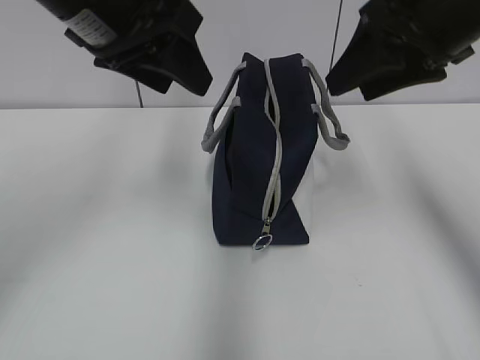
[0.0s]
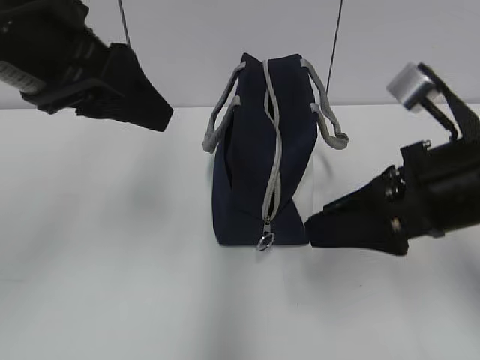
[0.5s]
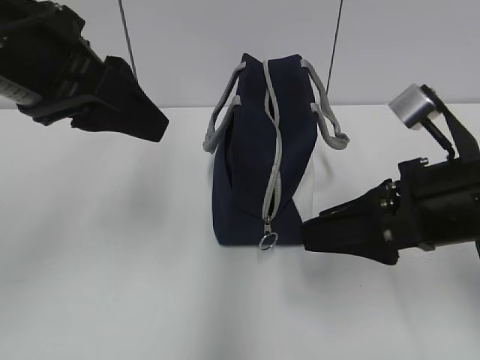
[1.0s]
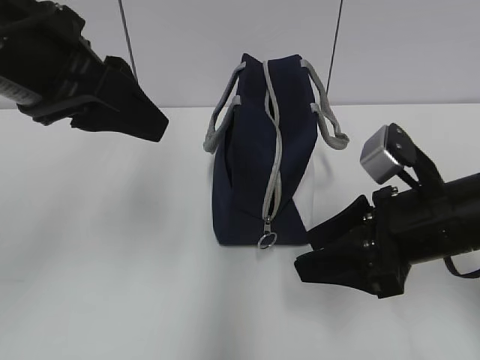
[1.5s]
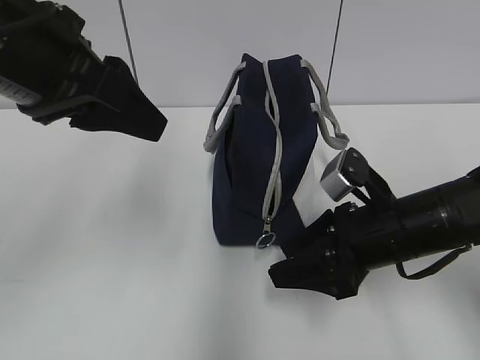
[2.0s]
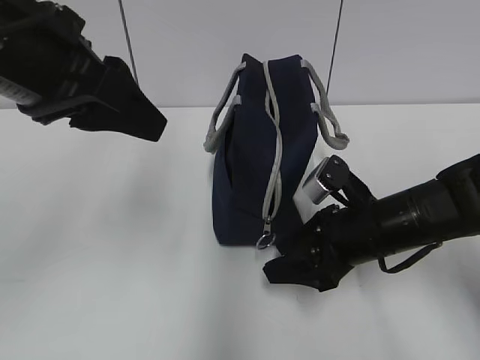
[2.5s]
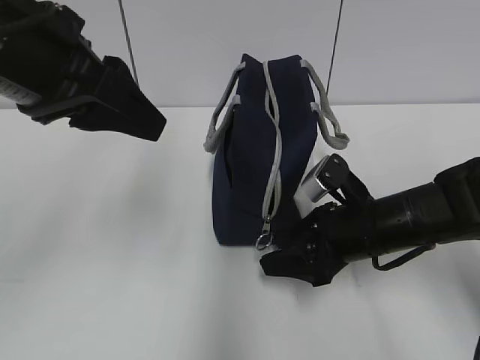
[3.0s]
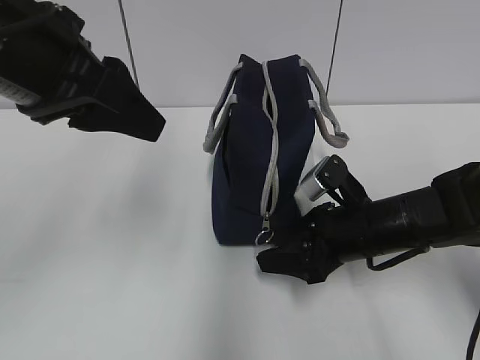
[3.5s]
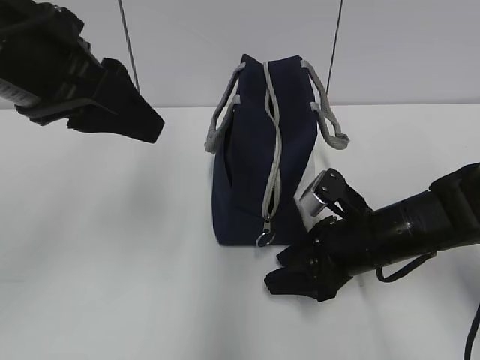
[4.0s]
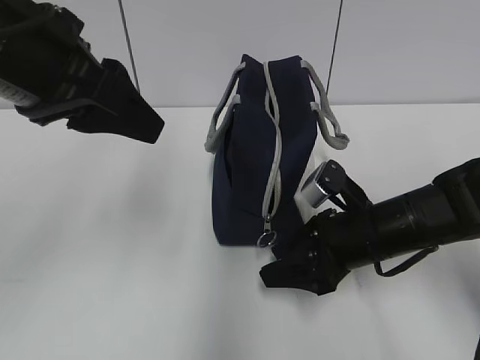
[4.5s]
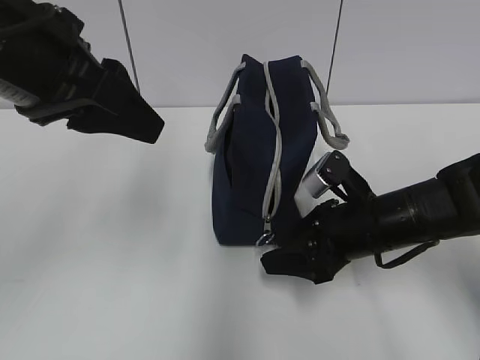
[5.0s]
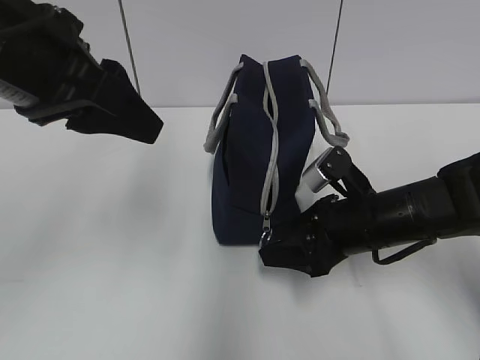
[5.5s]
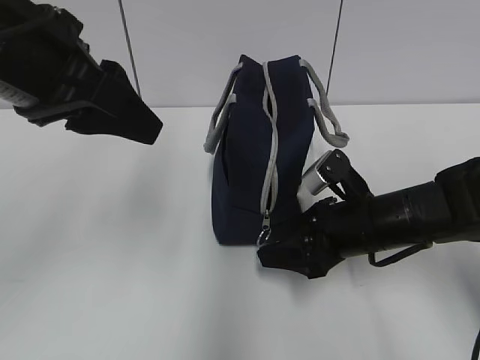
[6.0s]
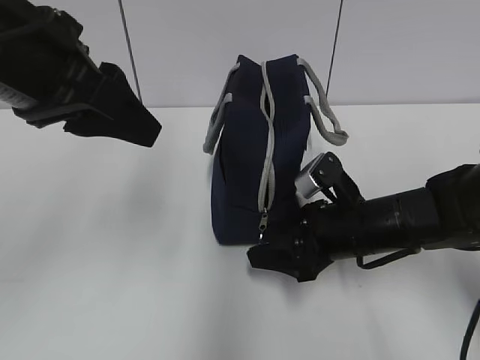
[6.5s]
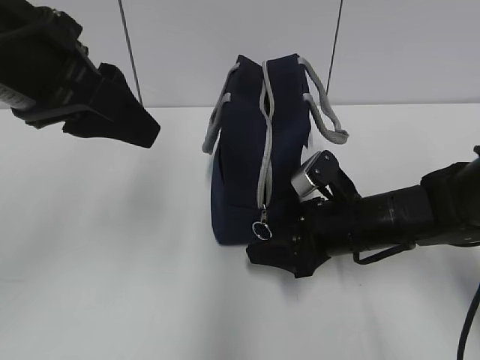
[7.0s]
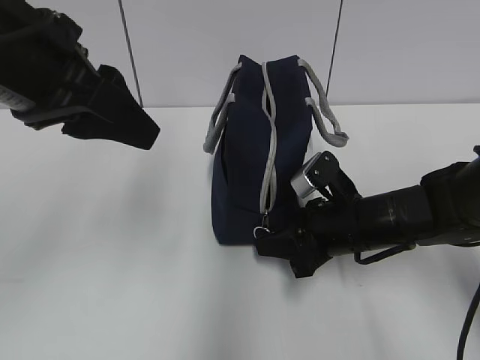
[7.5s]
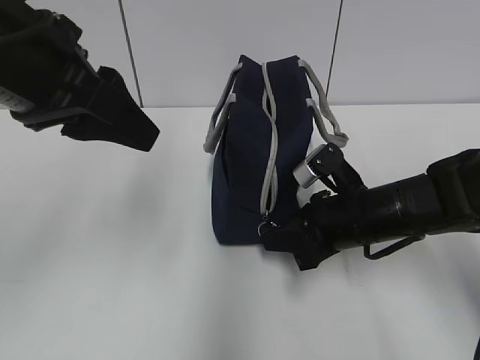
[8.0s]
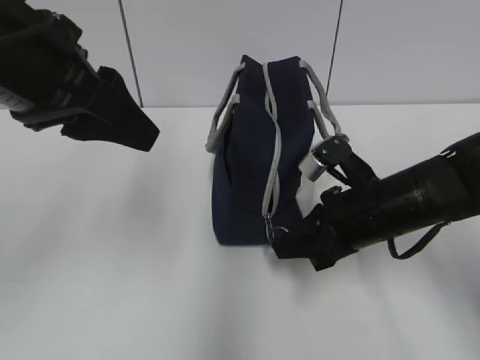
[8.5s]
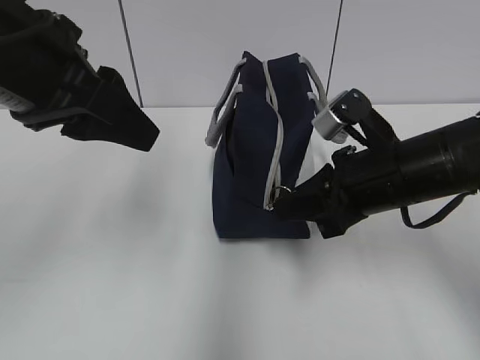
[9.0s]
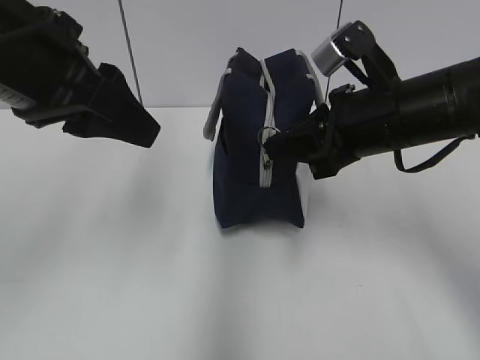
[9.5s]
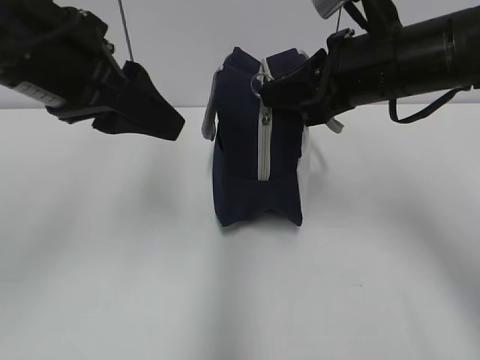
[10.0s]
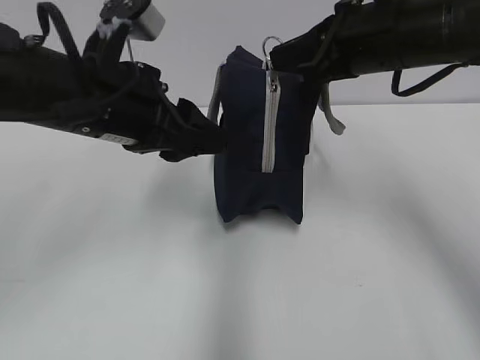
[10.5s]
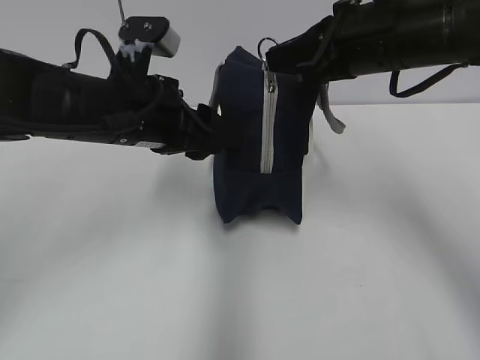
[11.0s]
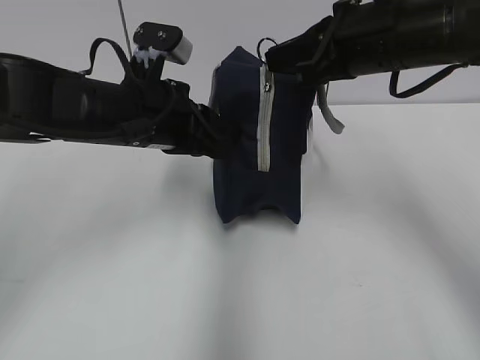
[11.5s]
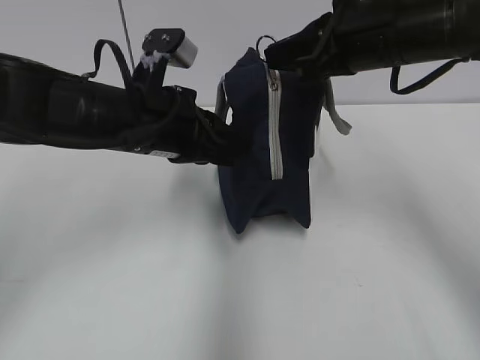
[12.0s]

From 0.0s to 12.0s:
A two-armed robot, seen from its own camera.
From 0.0s to 2.0s: The left gripper goes approximately 5 cm backward; the right gripper travels downward by roughly 20 cm.
From 2.0s to 4.0s: The right gripper ends up about 5 cm from where it was.
From 4.0s to 6.0s: The grippers stay close to where they were, moving slightly.
From 6.0s to 8.0s: The right gripper closes.
From 8.0s to 10.0s: The right gripper heads upward, covering approximately 15 cm.
From 10.0s to 12.0s: The left gripper shifts some 15 cm downward, forward and to the right, and closes.

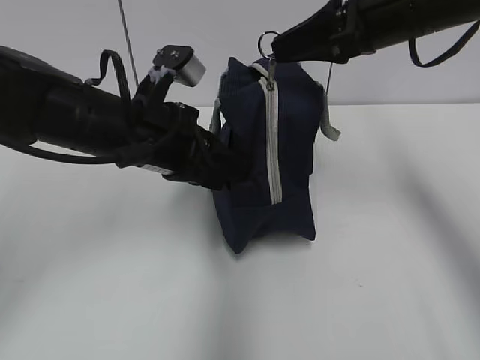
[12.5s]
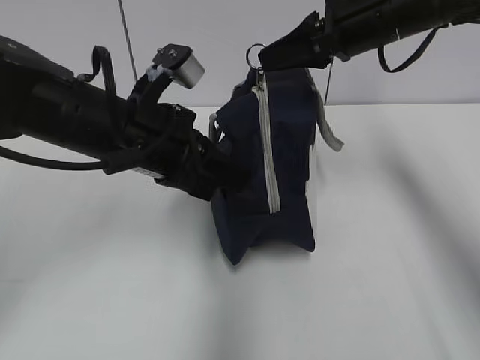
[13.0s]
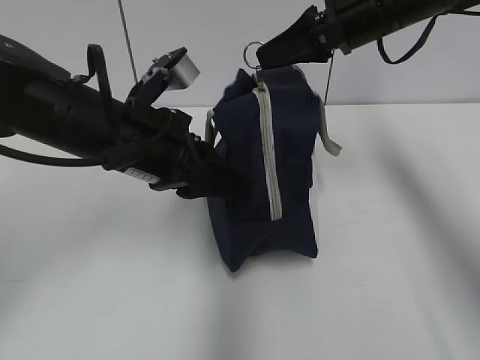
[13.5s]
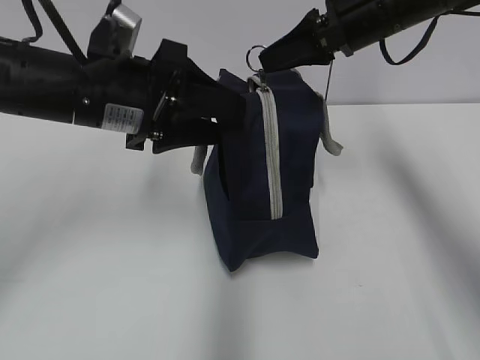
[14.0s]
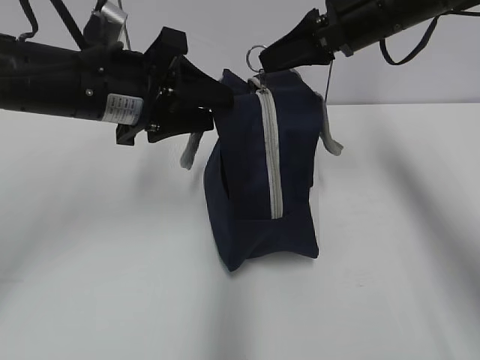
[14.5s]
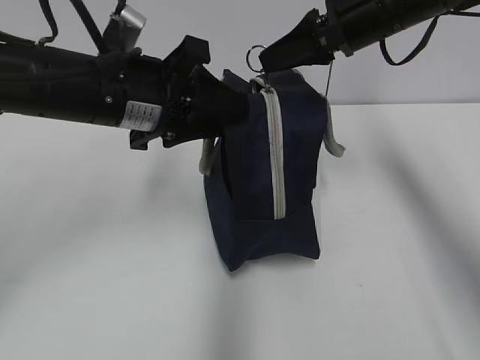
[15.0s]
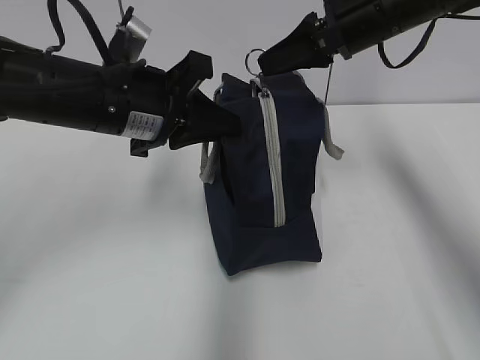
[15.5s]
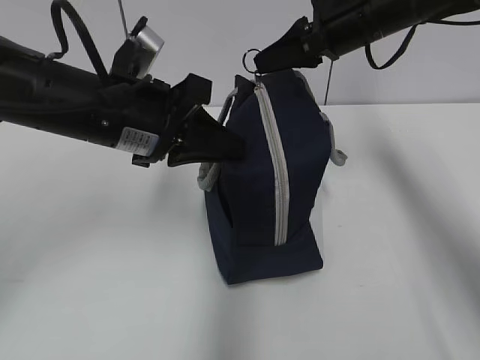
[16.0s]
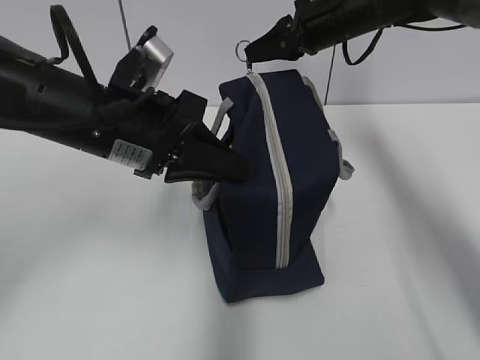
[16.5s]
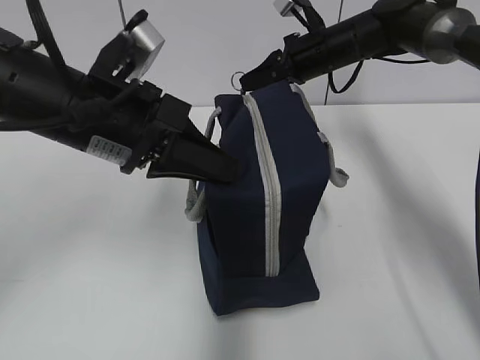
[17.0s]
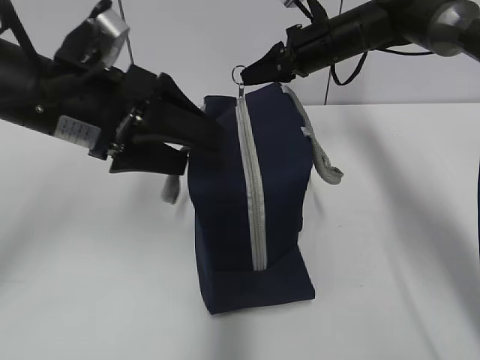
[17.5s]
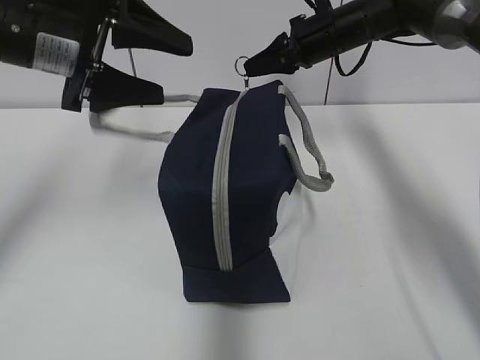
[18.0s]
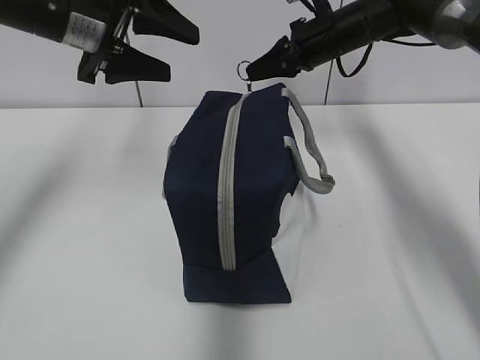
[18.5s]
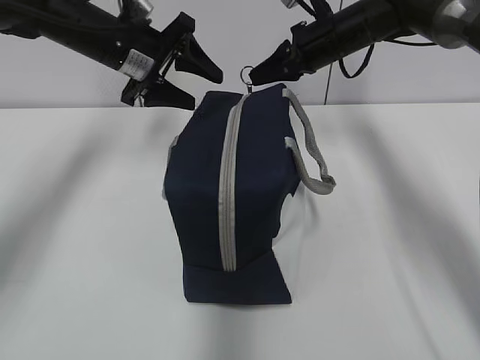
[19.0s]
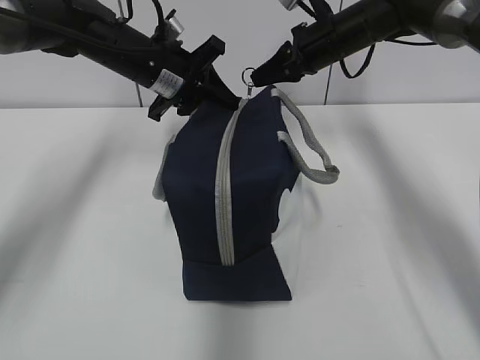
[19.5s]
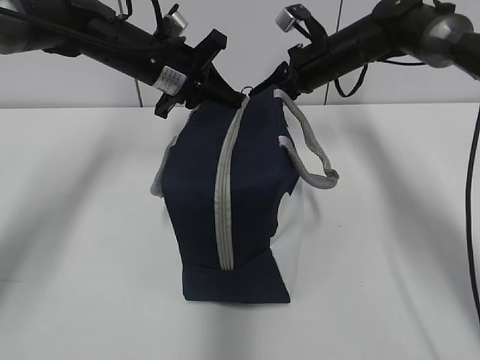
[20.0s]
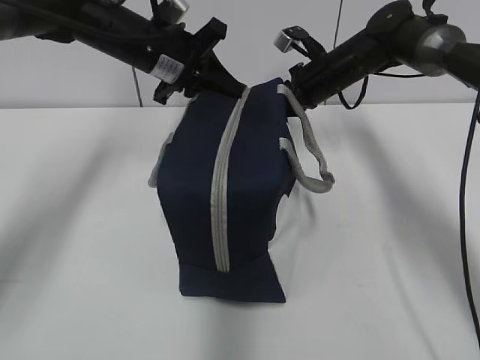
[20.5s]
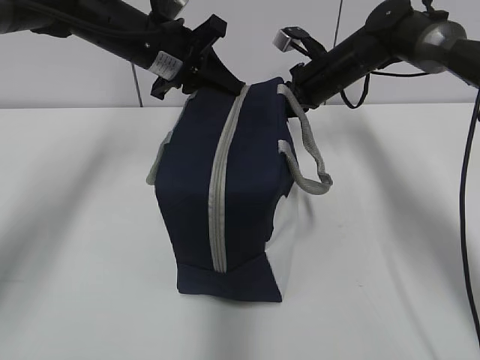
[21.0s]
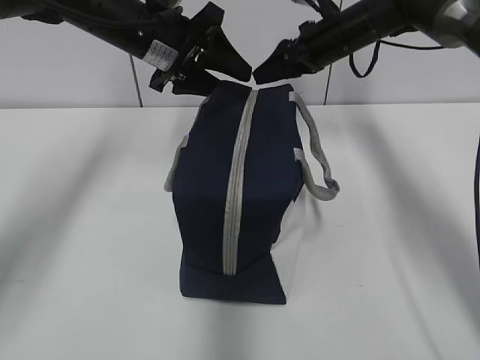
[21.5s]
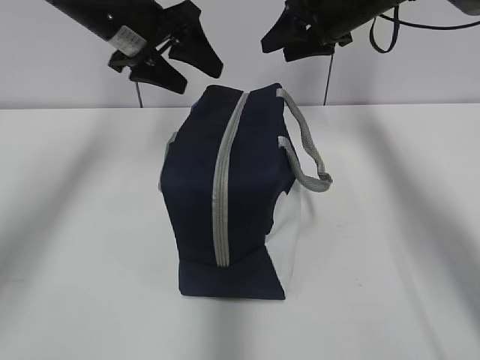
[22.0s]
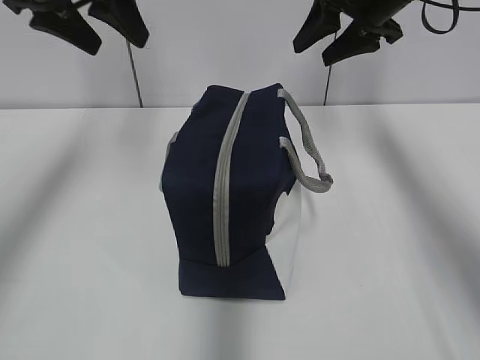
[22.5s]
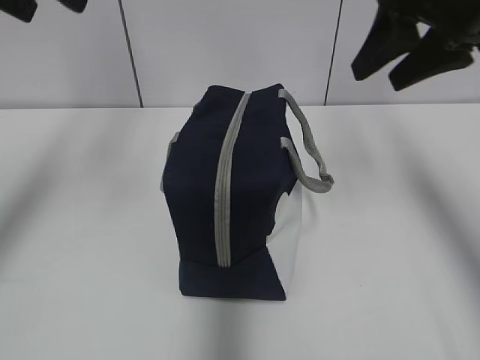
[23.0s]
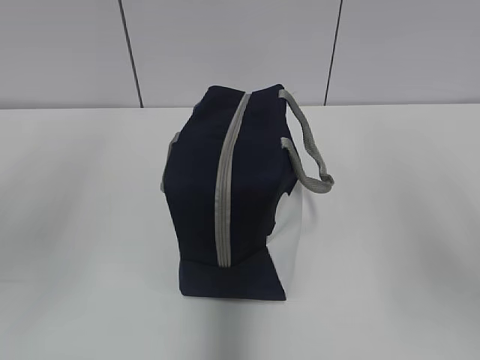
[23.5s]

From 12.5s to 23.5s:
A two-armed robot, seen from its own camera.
From 12.5s to 14.5s: The right gripper is displaced forward by roughly 5 cm. The left gripper moves some 5 cm, and opens.
From 14.5s to 16.0s: The left gripper closes.
From 16.0s to 18.0s: The right gripper shifts approximately 10 cm forward and downward. The left gripper shifts approximately 10 cm to the left and upward, and opens up.
From 18.0s to 20.0s: The left gripper is displaced forward, downward and to the right by some 15 cm, and closes its fingers.
From 20.0s to 21.5s: The right gripper opens its fingers, while the left gripper opens.
From 21.5s to 23.5s: The right gripper shifts some 40 cm backward. Meanwhile the left gripper goes some 30 cm backward, to the left and upward.

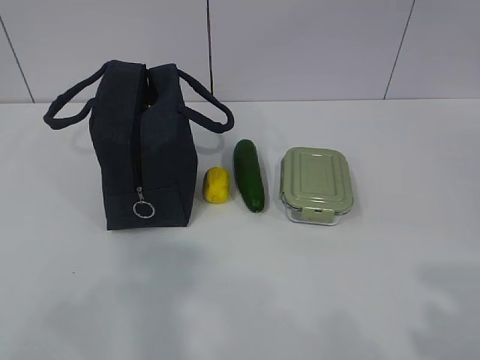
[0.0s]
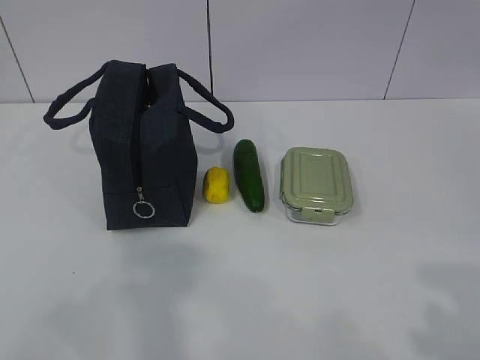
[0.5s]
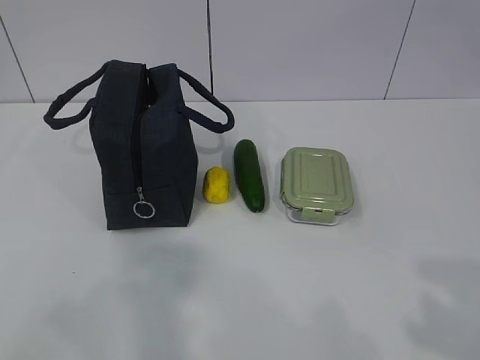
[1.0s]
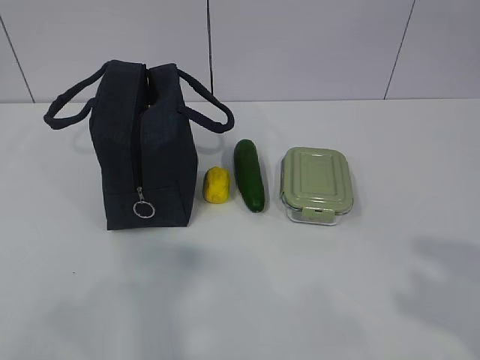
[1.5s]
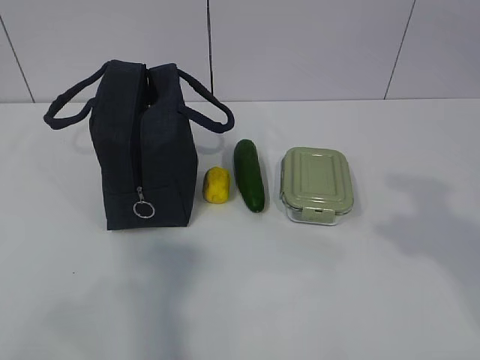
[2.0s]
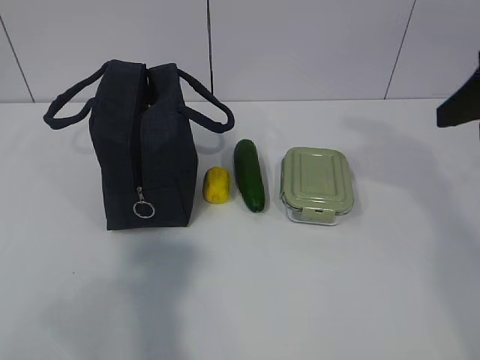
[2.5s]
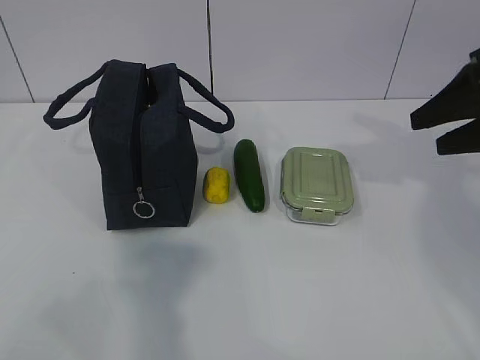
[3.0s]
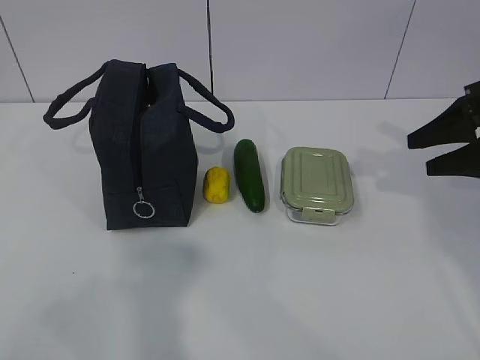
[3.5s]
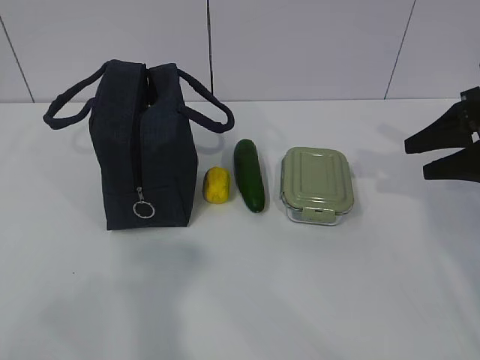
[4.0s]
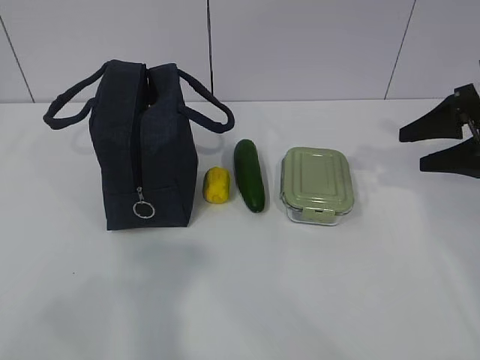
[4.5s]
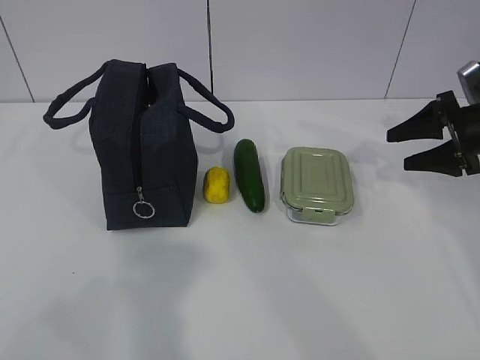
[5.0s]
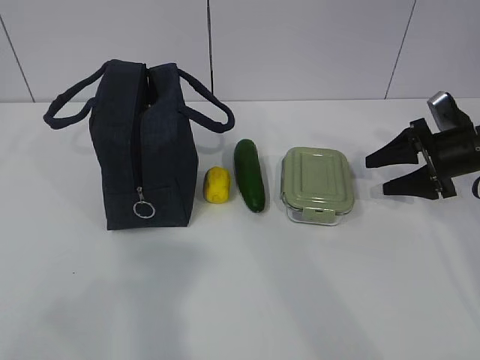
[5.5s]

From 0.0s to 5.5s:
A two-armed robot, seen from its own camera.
From 2.0s to 3.5s: The right gripper is displaced forward by approximately 25 cm.
From 3.5s to 5.5s: The right gripper shifts some 10 cm downward and forward.
